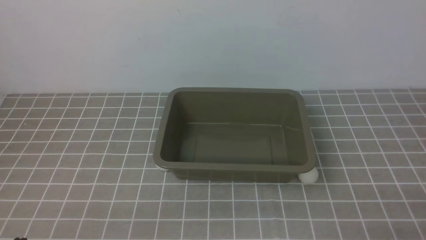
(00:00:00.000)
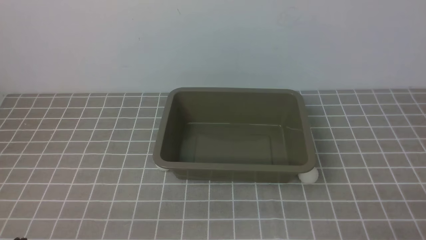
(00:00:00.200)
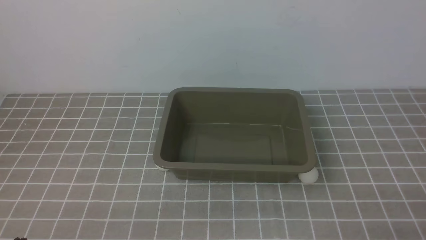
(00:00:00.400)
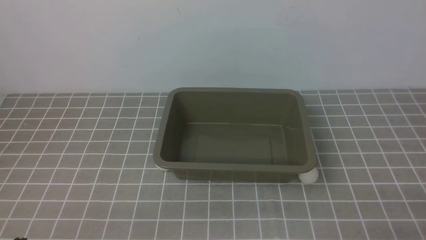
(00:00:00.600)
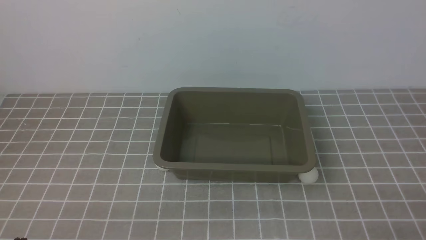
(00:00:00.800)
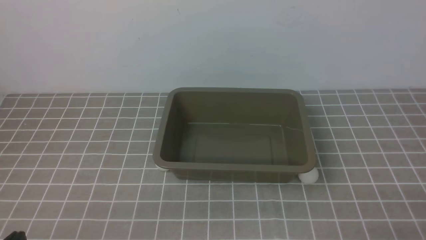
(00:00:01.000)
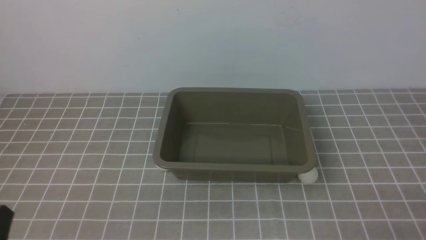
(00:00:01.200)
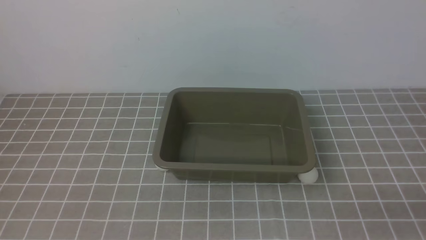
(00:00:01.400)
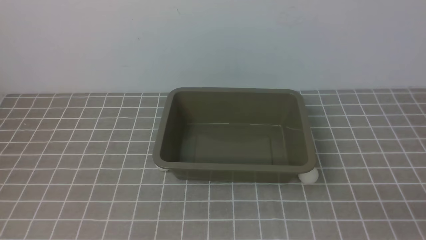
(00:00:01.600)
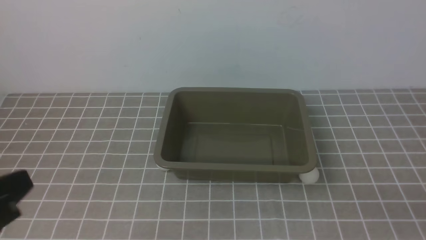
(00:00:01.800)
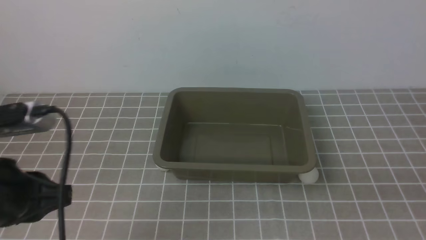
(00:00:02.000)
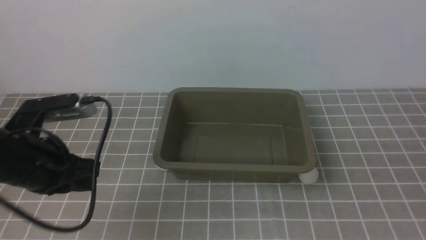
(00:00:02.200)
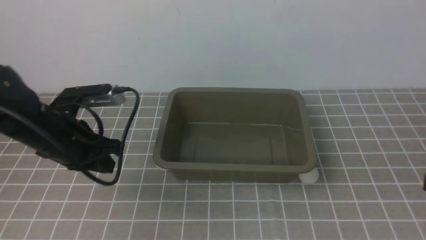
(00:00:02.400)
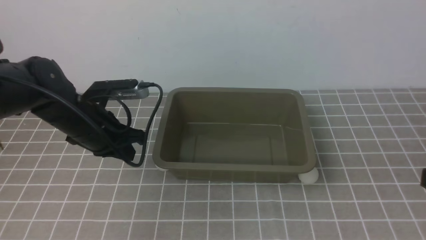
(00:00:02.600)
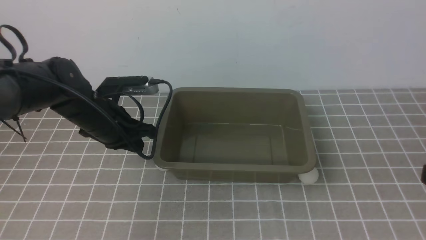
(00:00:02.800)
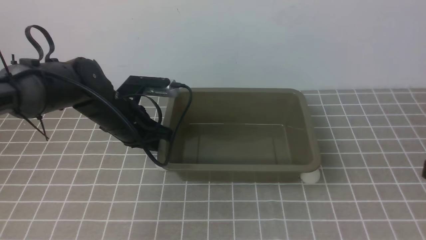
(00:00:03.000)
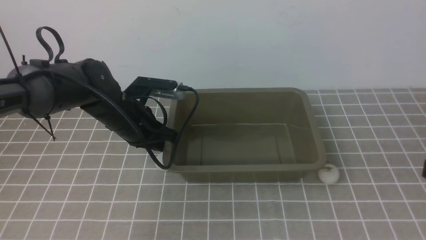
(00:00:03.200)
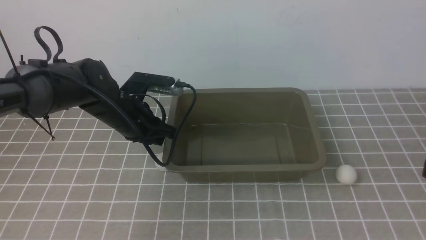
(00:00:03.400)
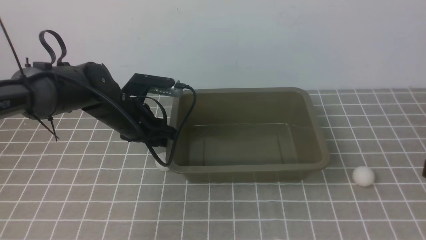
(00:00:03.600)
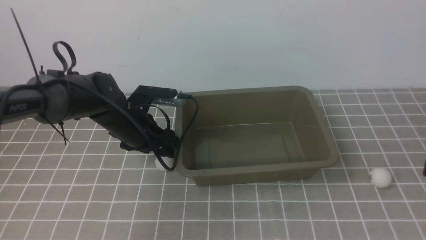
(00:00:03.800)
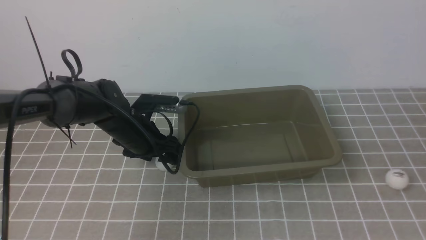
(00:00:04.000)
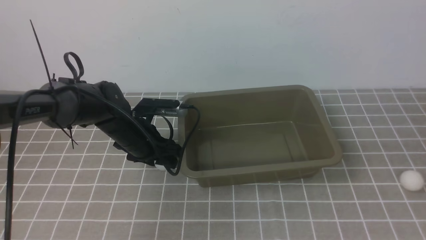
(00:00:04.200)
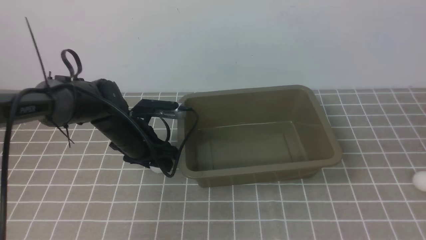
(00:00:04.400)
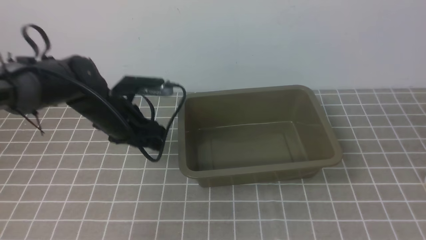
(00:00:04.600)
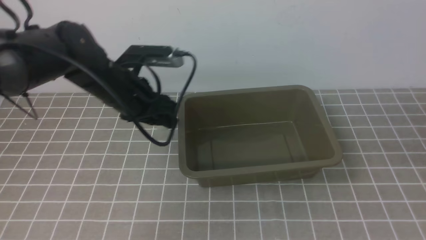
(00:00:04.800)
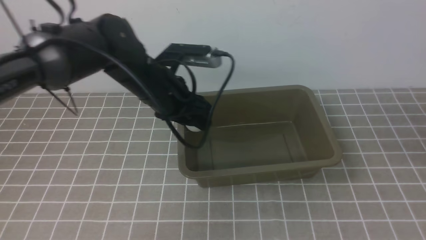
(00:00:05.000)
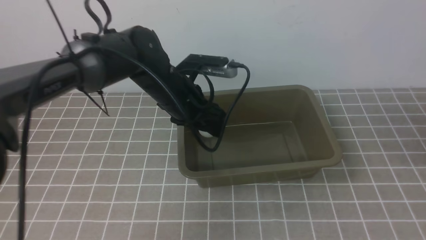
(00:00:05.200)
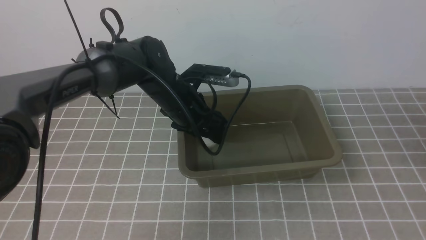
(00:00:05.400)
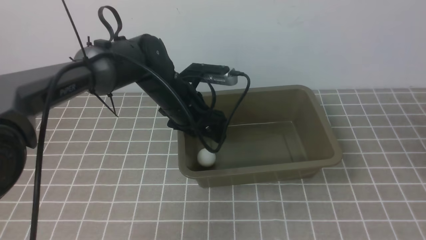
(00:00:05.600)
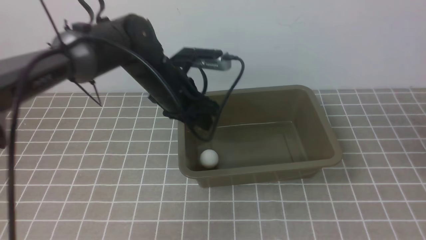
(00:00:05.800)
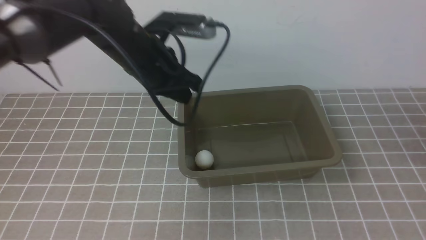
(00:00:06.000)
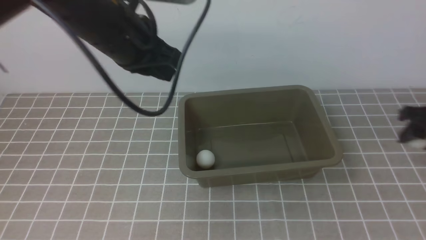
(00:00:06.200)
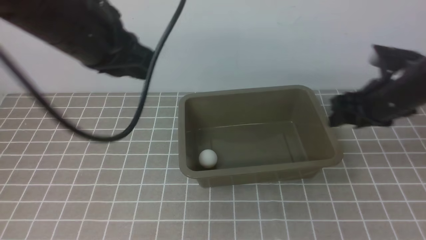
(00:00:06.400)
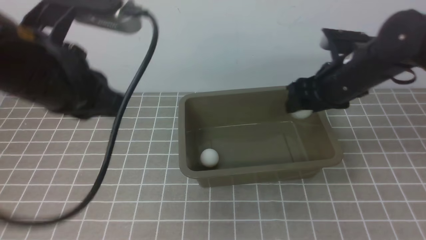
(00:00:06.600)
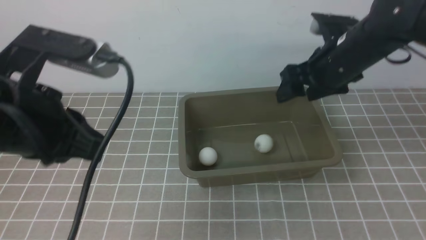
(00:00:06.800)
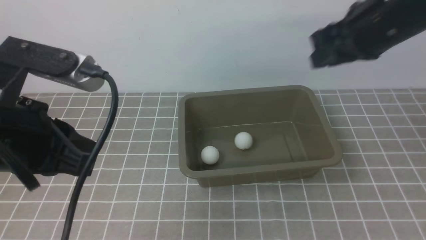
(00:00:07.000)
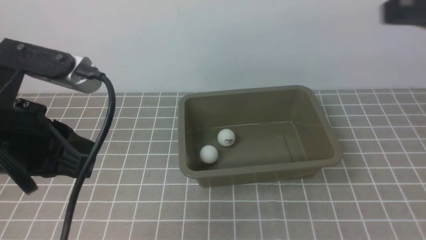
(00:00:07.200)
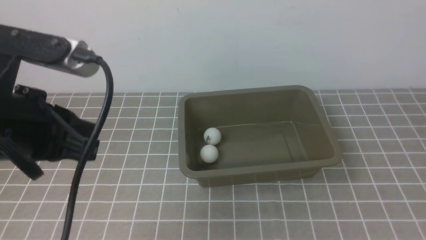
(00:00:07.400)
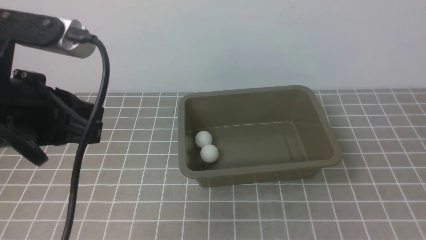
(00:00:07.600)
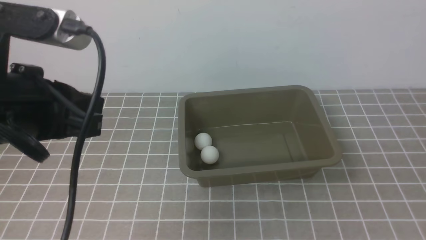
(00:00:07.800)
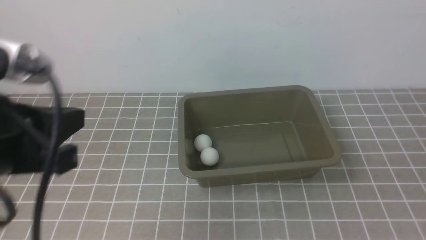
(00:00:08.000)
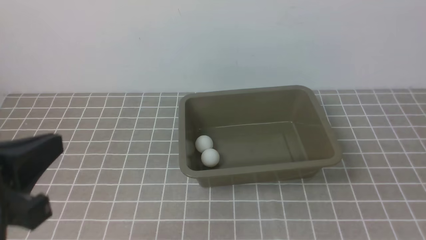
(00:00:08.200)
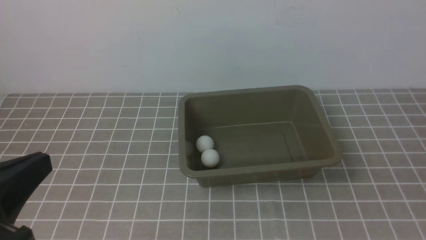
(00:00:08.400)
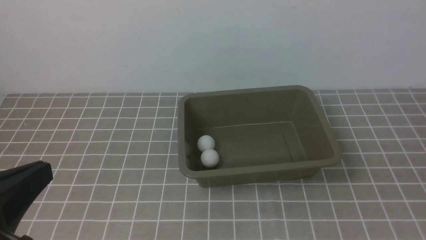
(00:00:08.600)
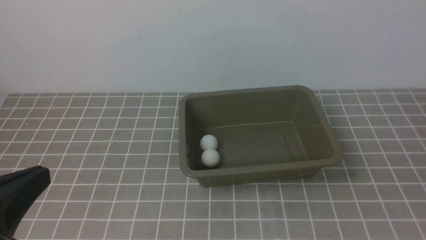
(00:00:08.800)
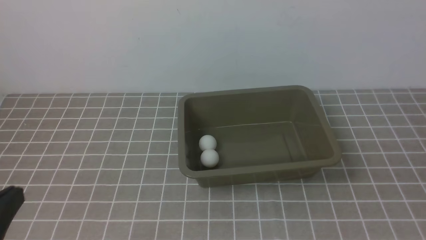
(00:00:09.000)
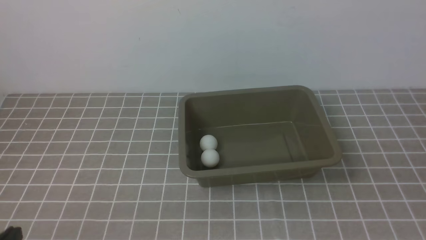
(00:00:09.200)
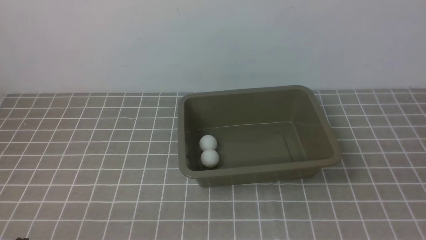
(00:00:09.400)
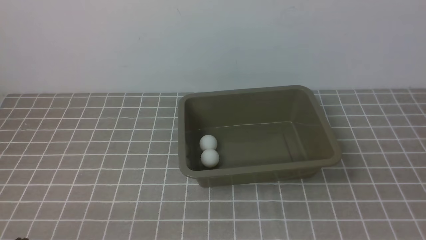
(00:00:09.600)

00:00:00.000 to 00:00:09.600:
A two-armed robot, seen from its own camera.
Step, 00:00:00.000 to 00:00:04.600: use the left arm to clamp the table tennis ball closest to it.
Step, 00:00:04.800 to 00:00:05.400: use the left arm to put the table tennis ball into the box.
Step, 00:00:05.800 to 00:00:06.000: use the right arm to clamp the table tennis ball closest to it.
Step, 00:00:06.400 to 00:00:06.800: use the right arm to put the table tennis ball into the box.
00:00:01.600 to 00:00:03.200: The right gripper heads upward, covering about 10 cm; the left gripper heads forward, covering approximately 30 cm.
00:00:03.200 to 00:00:04.800: The right gripper heads forward, to the right and downward, covering roughly 20 cm, and opens. Meanwhile the left gripper changes place by approximately 5 cm, and opens.
00:00:04.800 to 00:00:06.400: The left gripper is displaced upward and backward by some 15 cm, and closes up. The right gripper heads to the left and forward, covering about 20 cm.
00:00:06.400 to 00:00:08.000: The right gripper travels backward by about 35 cm, and closes up; the left gripper goes roughly 15 cm backward.
00:00:08.000 to 00:00:09.600: The left gripper shifts about 20 cm downward and backward.

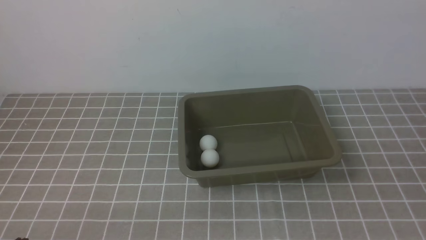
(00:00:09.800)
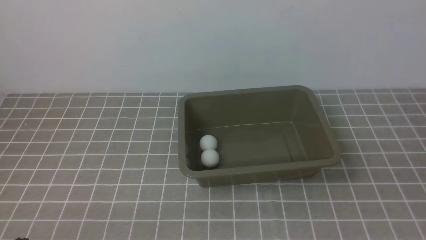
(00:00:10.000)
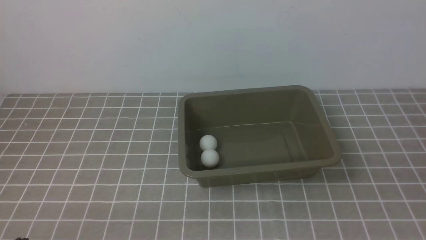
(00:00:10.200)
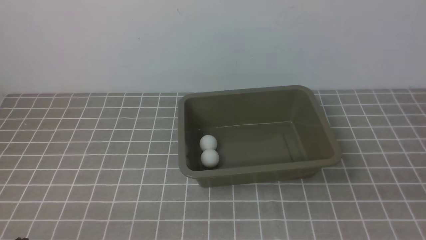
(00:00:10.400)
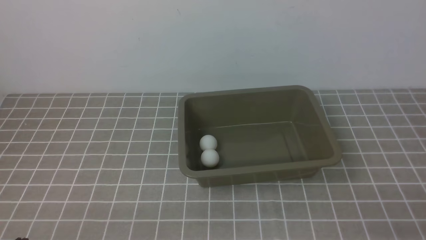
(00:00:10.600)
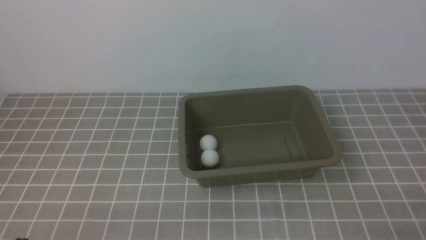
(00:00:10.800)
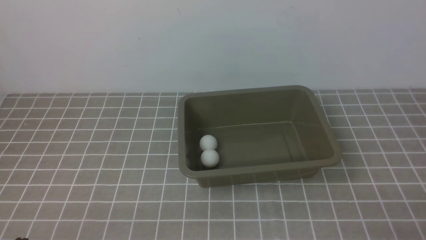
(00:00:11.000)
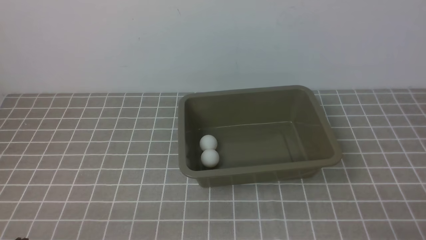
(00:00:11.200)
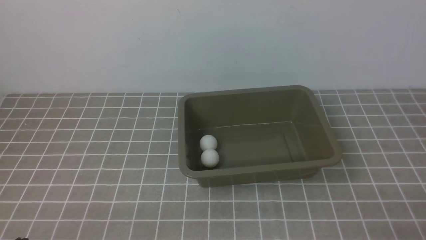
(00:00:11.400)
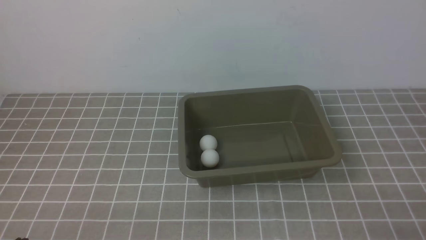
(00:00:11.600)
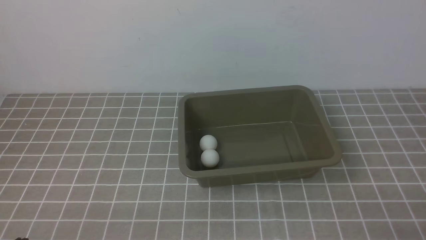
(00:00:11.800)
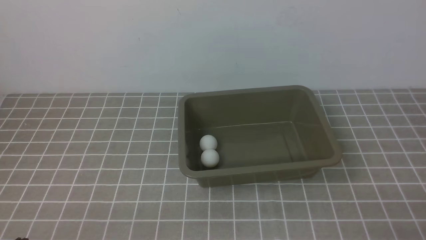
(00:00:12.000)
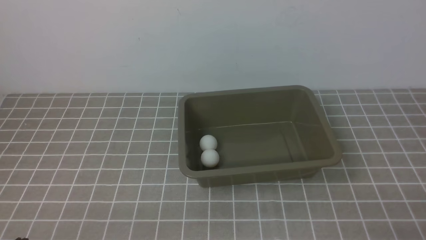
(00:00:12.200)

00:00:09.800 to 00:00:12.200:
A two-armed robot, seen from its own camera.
00:00:11.000 to 00:00:12.200: Both grippers stay about where they are.
